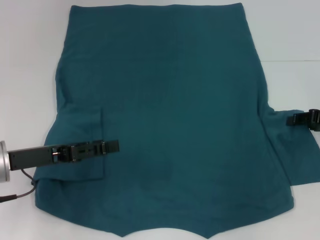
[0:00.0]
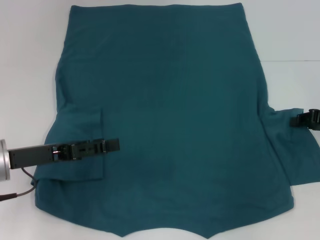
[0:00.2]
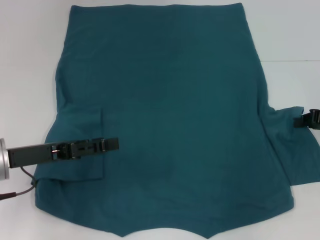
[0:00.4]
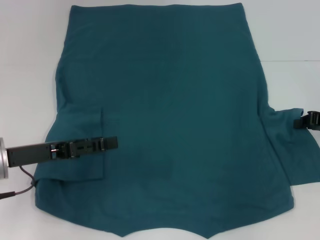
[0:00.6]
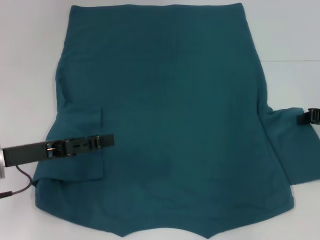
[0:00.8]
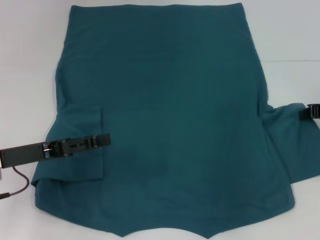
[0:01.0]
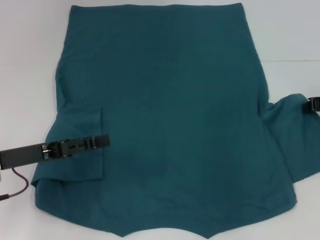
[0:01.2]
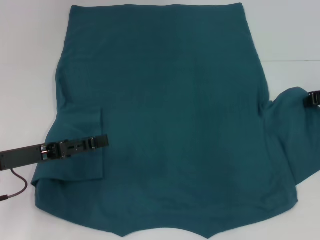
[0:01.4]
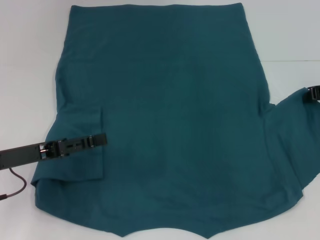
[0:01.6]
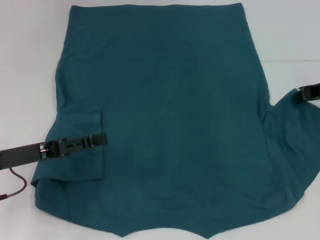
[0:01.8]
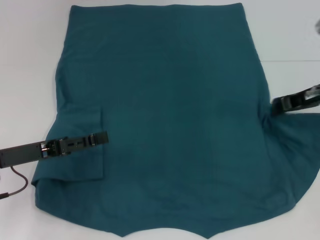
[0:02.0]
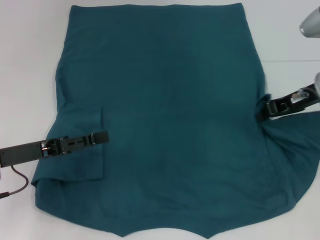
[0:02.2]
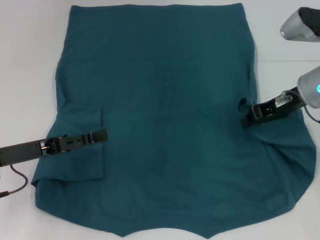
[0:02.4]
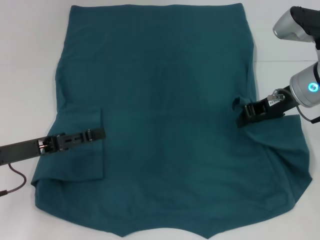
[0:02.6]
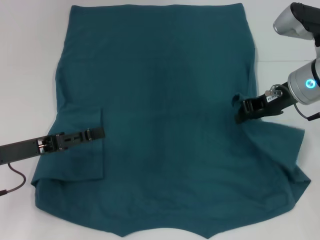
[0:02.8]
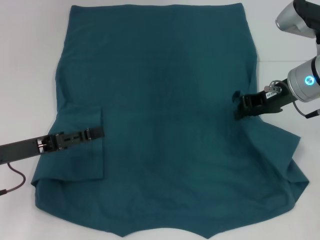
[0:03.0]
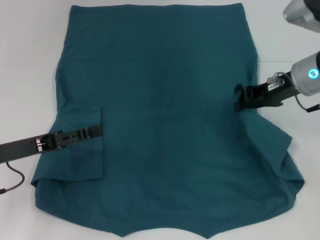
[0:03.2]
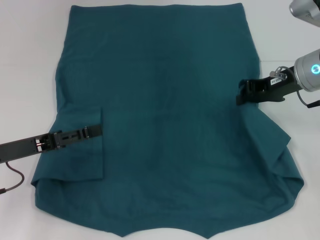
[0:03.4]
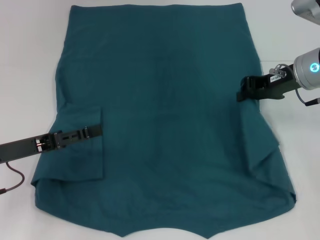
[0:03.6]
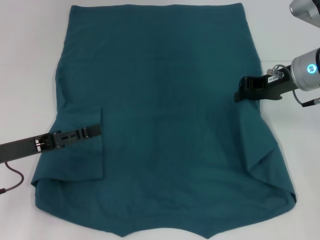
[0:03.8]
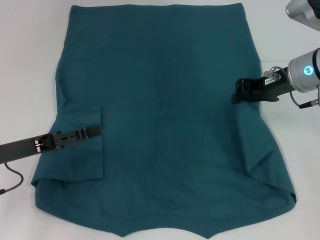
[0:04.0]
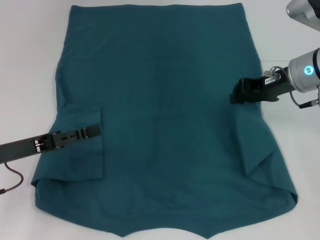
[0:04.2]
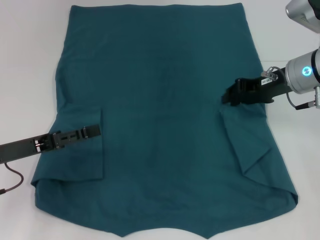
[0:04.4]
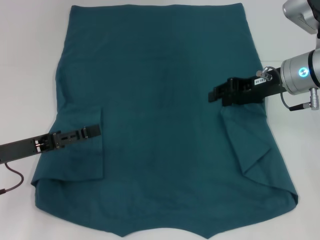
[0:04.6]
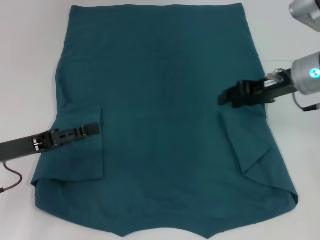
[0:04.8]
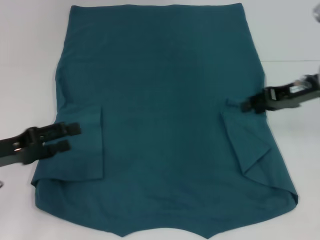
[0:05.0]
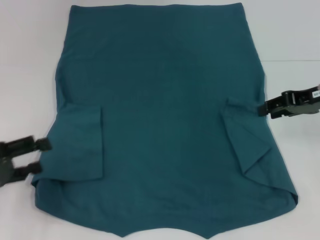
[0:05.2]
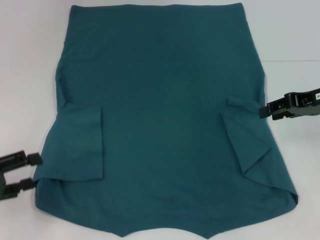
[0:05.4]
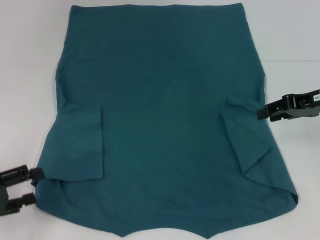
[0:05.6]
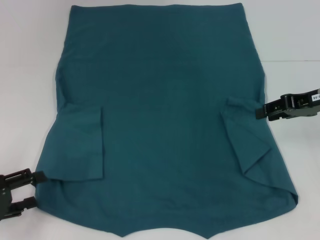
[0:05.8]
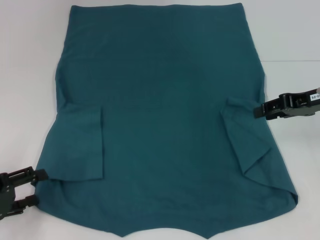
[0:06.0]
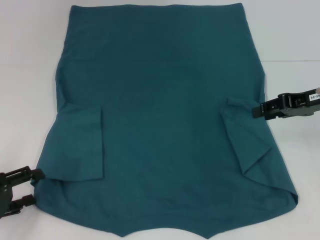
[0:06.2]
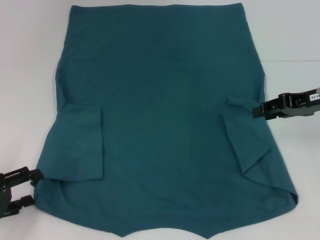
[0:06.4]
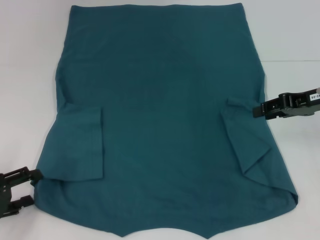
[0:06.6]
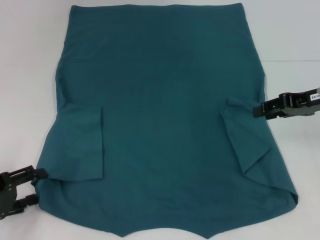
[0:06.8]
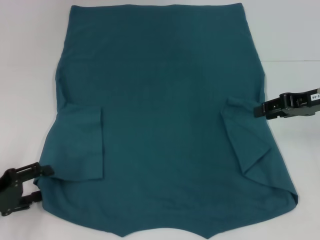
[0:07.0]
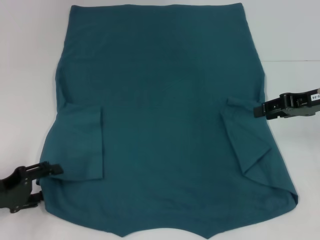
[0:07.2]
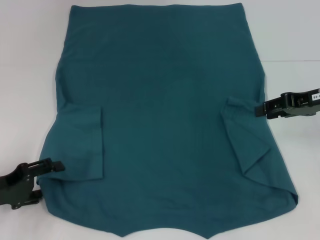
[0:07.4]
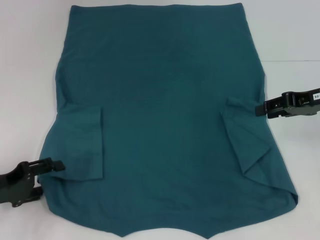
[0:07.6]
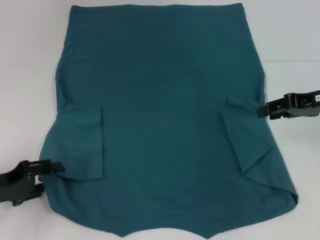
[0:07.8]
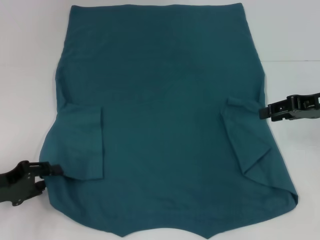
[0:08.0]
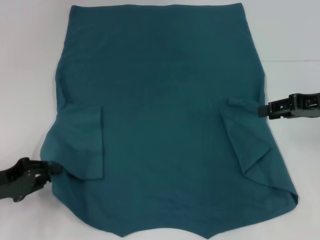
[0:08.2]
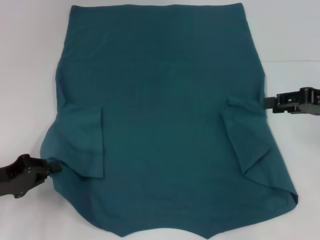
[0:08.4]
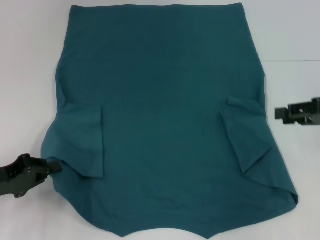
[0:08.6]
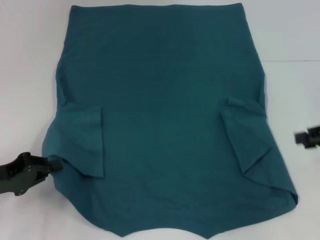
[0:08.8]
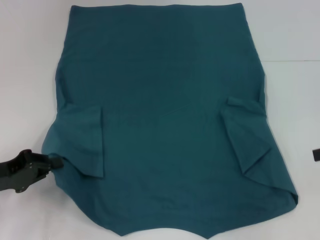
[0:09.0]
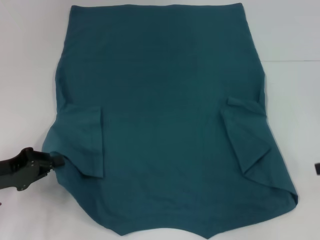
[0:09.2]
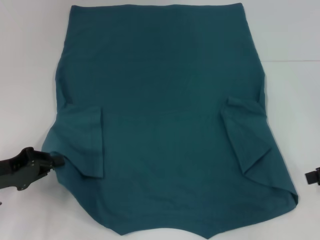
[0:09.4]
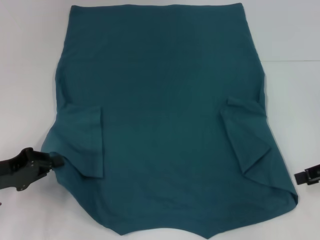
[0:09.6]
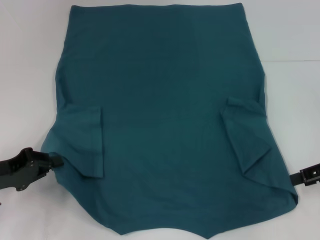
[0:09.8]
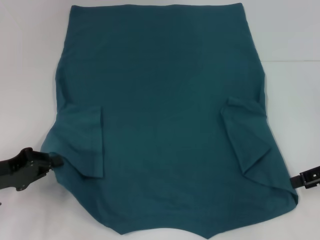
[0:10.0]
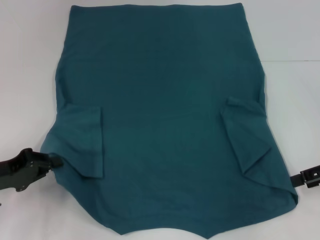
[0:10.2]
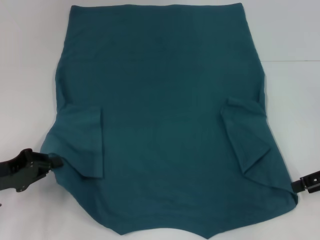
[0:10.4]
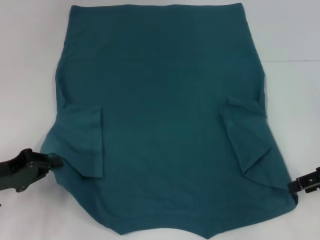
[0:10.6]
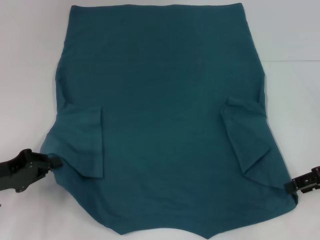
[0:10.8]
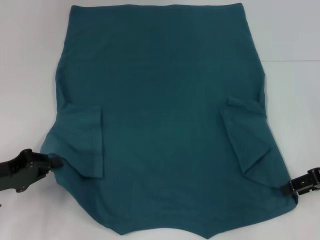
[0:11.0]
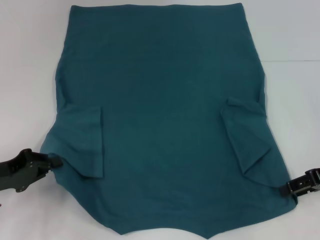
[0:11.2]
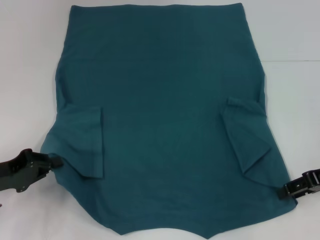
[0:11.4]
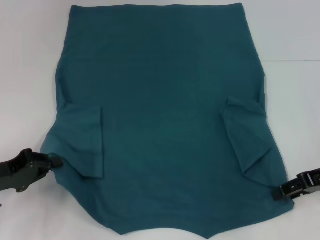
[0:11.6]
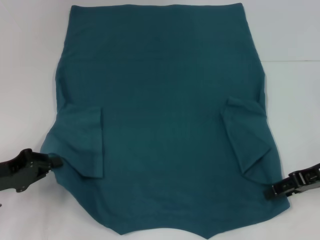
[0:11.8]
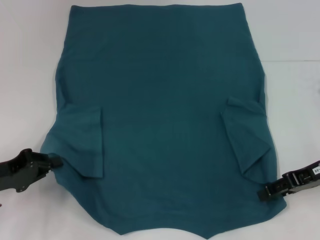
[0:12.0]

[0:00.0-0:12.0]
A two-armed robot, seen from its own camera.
Step, 0:00.0 to 0:04.8: Fold the bottom right sleeve to the right.
Step, 0:05.0 to 0:08.4: Grab the bottom left corner with your left hand.
0:00.0 to 0:01.6: The right gripper travels forward by approximately 5 cm, and closes up.
0:01.6 to 0:03.0: The right gripper shifts roughly 10 cm to the left.
0:03.0 to 0:04.4: The grippers stay close to where they were, moving slightly.
0:04.4 to 0:06.0: The right gripper heads to the right, covering approximately 5 cm. The left gripper travels backward and to the left by about 10 cm.
0:06.0 to 0:07.6: The grippers move only a little.
0:07.6 to 0:09.0: The right gripper shifts roughly 10 cm to the right and backward. Meanwhile the left gripper closes up.
0:09.0 to 0:10.4: The right gripper changes place by about 5 cm.
0:10.4 to 0:12.0: The right gripper shifts about 5 cm to the left.

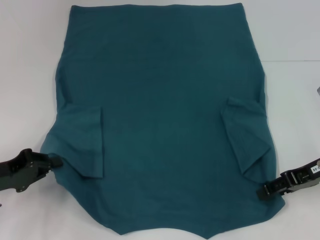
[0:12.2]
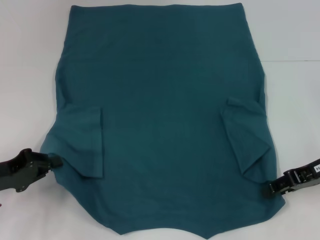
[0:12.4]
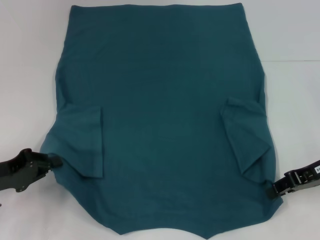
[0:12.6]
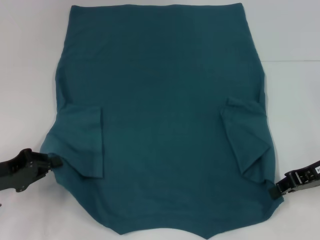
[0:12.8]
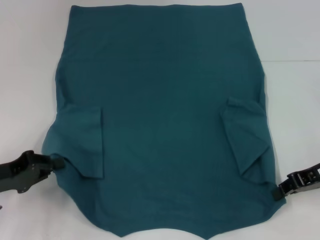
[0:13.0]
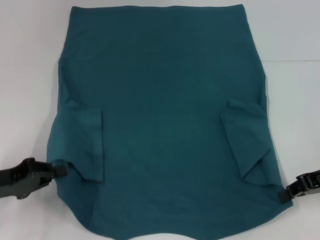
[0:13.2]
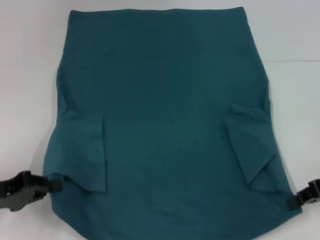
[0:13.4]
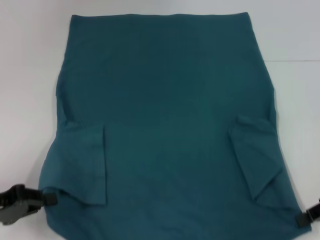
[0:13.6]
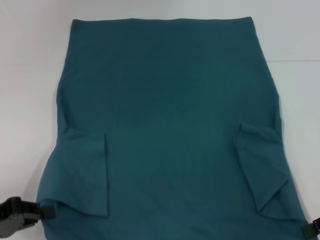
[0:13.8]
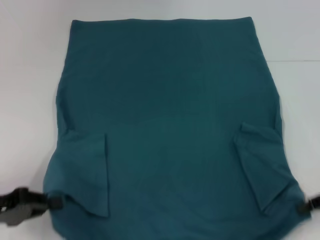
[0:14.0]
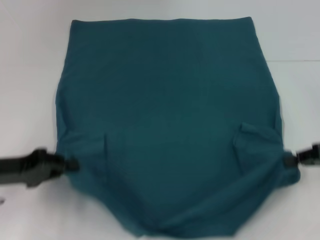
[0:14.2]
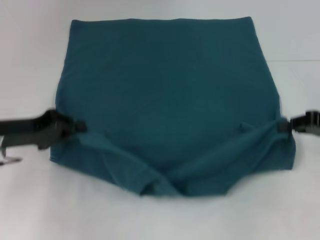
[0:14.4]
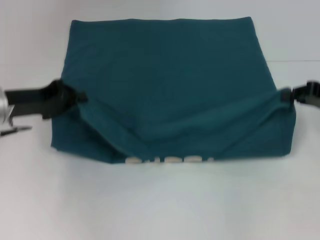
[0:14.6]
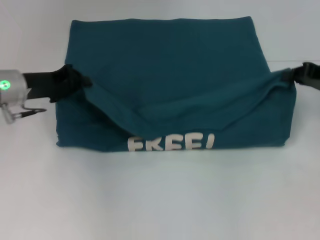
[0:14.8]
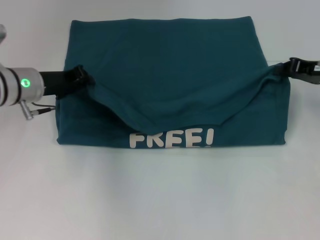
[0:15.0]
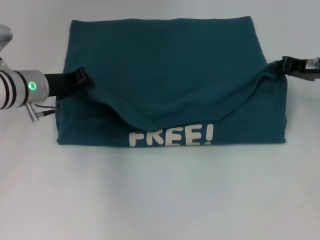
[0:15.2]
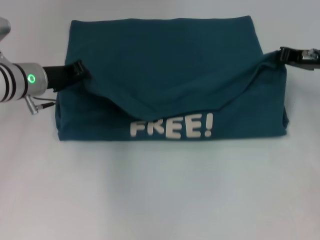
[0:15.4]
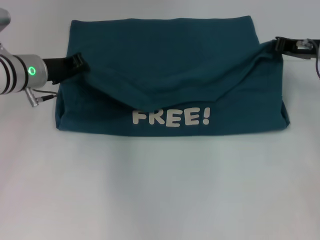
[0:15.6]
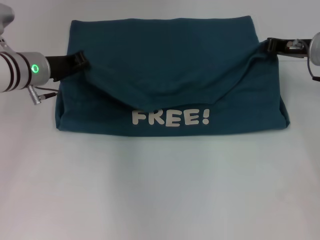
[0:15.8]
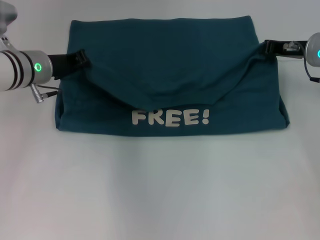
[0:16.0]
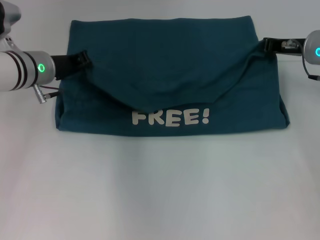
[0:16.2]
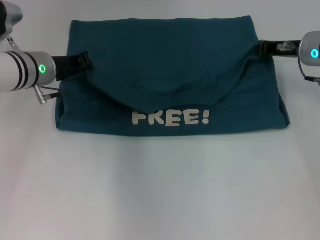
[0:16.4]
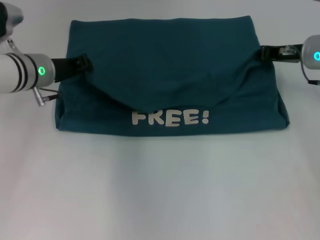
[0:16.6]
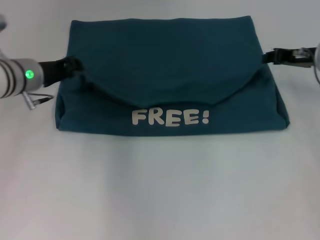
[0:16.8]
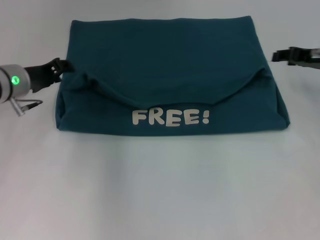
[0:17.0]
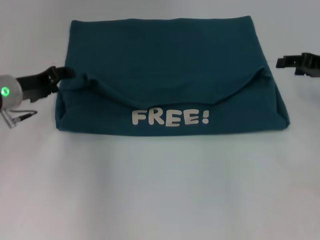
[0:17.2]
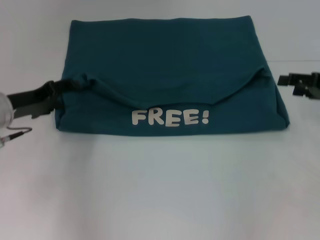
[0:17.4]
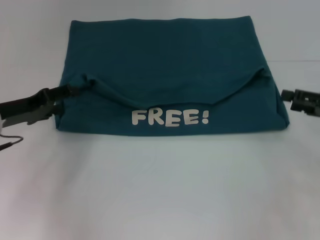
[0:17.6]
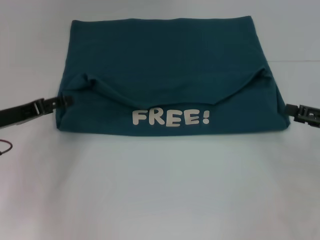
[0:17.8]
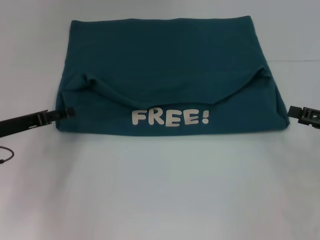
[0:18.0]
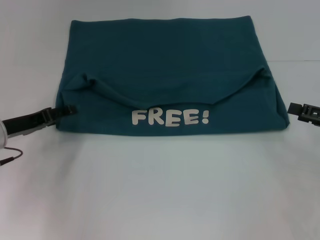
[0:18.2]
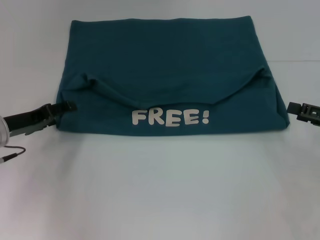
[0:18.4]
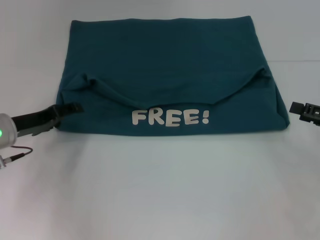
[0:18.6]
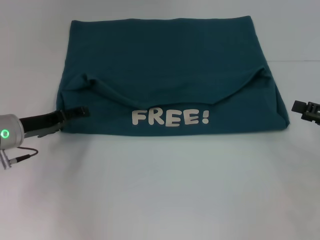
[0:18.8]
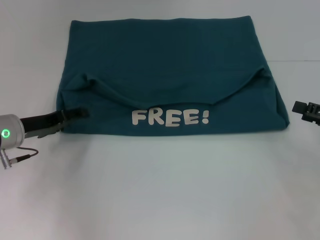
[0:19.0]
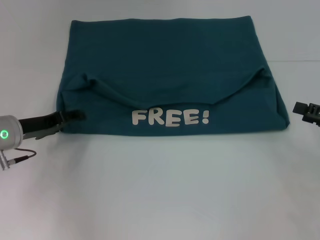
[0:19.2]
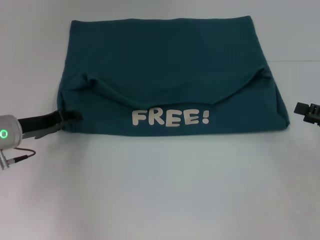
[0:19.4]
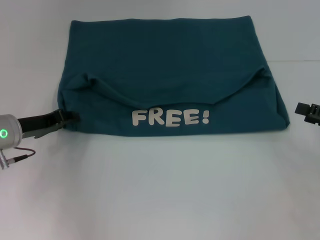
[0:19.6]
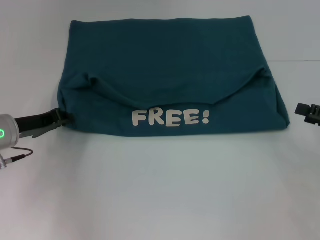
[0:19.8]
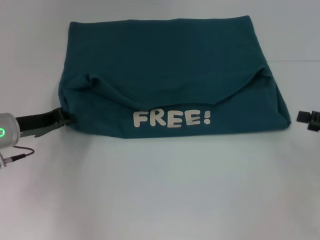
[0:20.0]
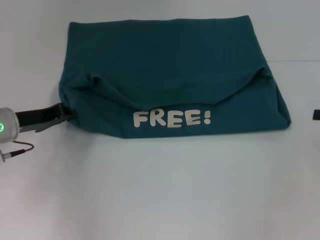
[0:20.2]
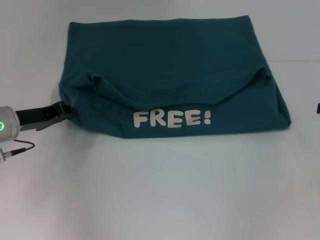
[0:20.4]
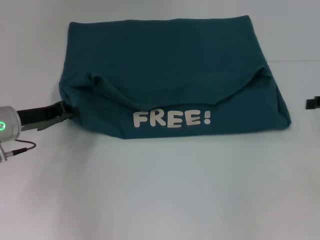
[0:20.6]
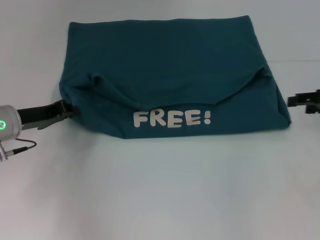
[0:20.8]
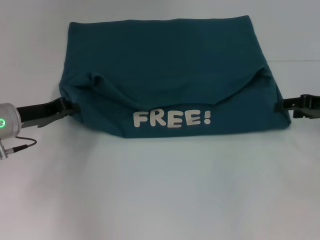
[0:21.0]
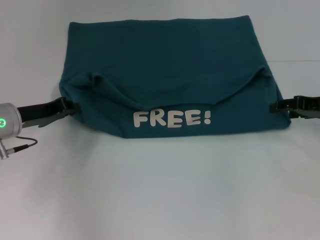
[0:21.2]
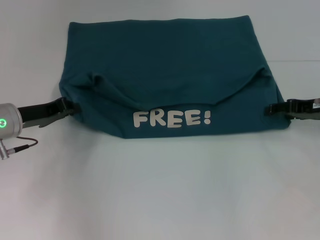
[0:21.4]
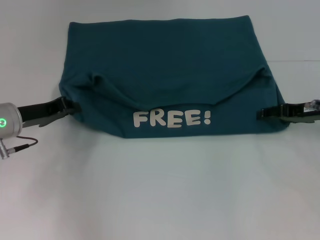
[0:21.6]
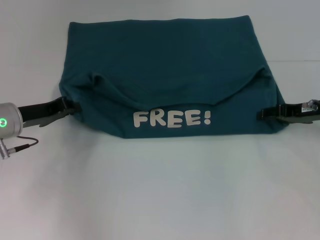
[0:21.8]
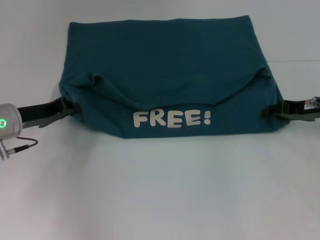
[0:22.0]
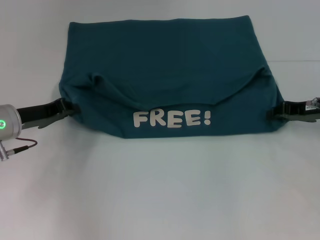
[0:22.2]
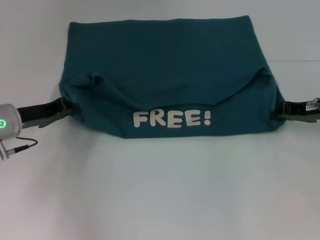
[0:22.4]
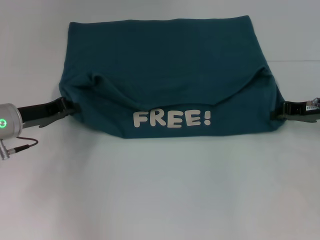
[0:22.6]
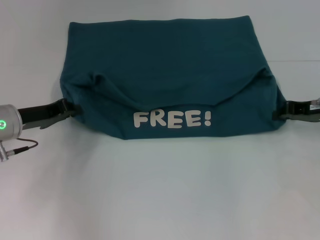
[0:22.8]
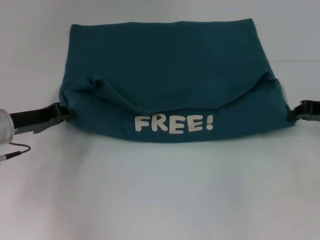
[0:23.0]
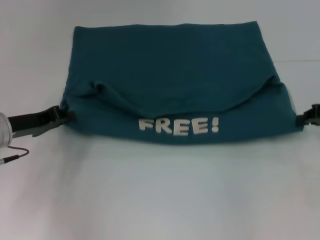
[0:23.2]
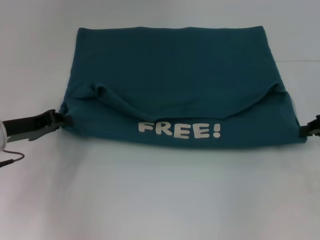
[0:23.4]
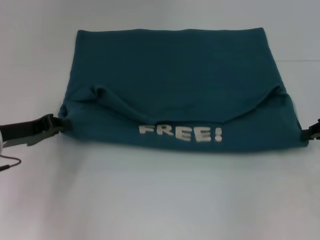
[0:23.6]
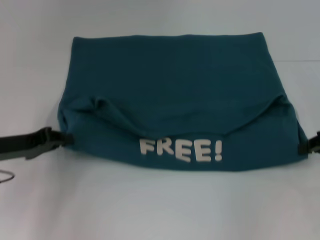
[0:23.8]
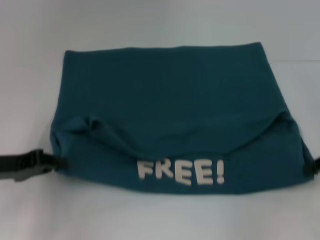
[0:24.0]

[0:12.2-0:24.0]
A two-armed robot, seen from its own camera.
Step, 0:13.2 to 0:17.0: Fold the clothes to the left.
Step, 0:13.2 to 0:17.0: Fold the clothes to the right.
0:12.2 to 0:13.6: The right gripper shifts by approximately 5 cm, and closes.
0:13.6 to 0:15.2: The right gripper shifts about 15 cm forward; the left gripper moves forward and to the right, some 20 cm.
0:15.2 to 0:16.6: The grippers make only small movements.
0:16.6 to 0:18.2: The right gripper shifts roughly 20 cm backward and to the right, and opens up. Meanwhile the left gripper travels backward, to the left and downward by approximately 15 cm, and opens up.
0:18.2 to 0:19.6: The left gripper closes its fingers.
0:19.6 to 0:21.0: The left gripper closes up. The right gripper is displaced forward by some 10 cm.
0:21.0 to 0:22.6: The right gripper closes.
0:22.6 to 0:24.0: The left gripper goes about 10 cm backward. The right gripper travels backward and to the right by about 10 cm.
